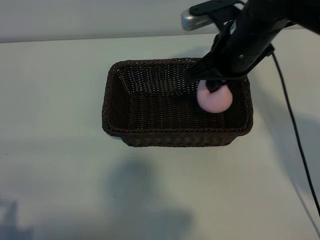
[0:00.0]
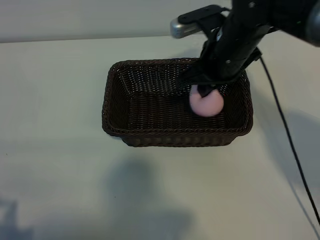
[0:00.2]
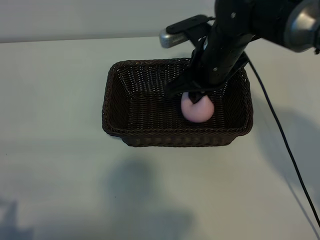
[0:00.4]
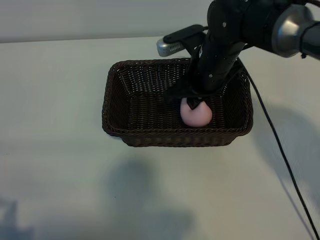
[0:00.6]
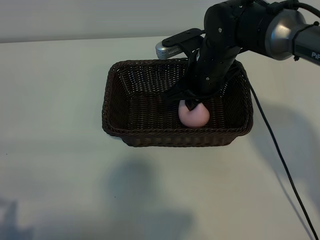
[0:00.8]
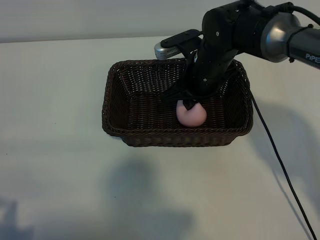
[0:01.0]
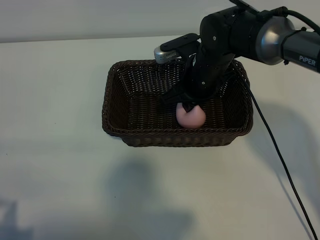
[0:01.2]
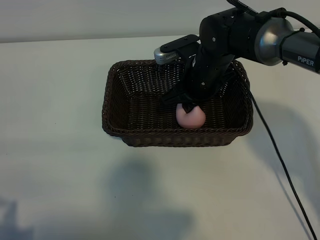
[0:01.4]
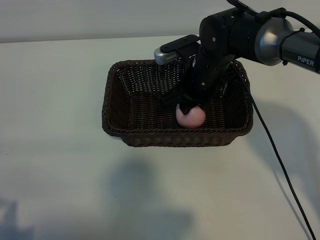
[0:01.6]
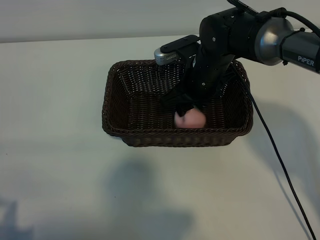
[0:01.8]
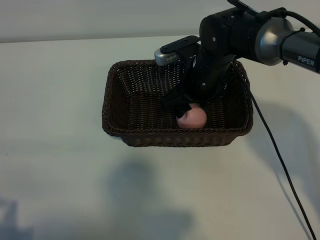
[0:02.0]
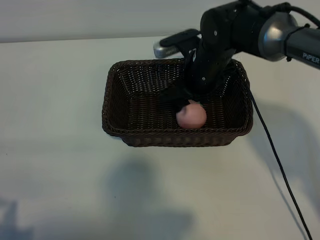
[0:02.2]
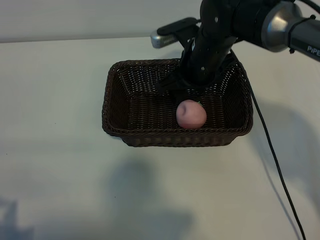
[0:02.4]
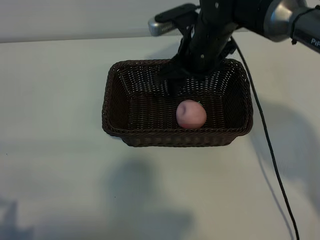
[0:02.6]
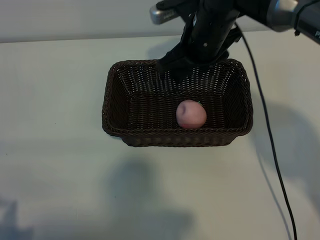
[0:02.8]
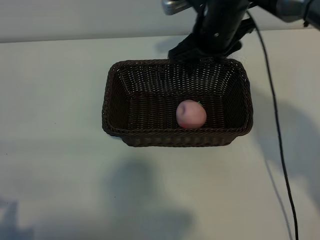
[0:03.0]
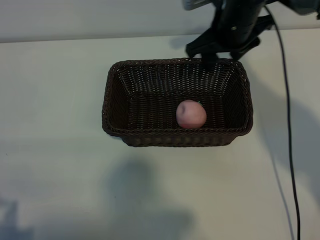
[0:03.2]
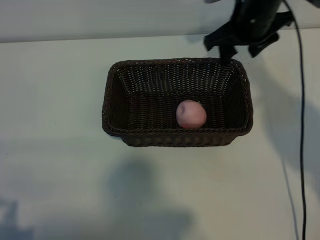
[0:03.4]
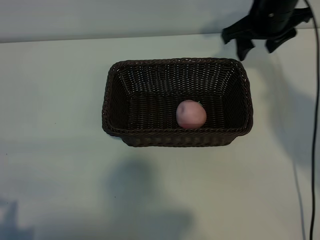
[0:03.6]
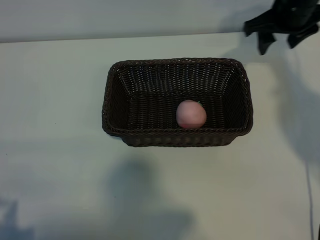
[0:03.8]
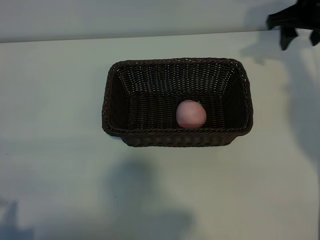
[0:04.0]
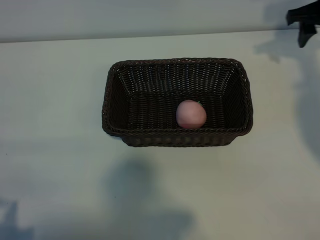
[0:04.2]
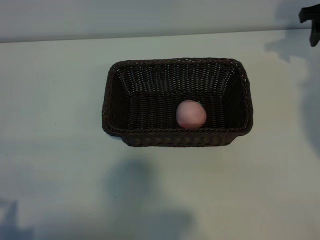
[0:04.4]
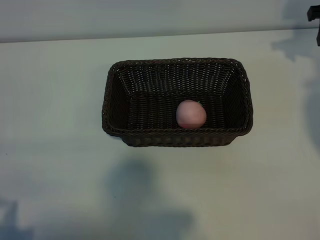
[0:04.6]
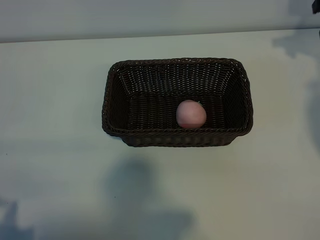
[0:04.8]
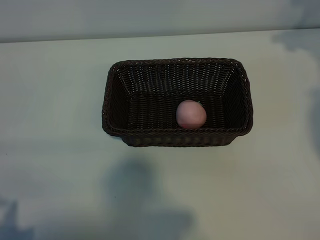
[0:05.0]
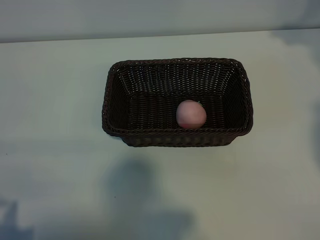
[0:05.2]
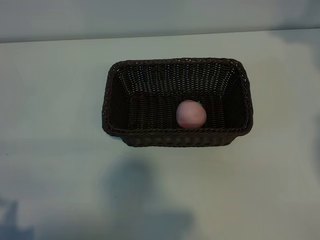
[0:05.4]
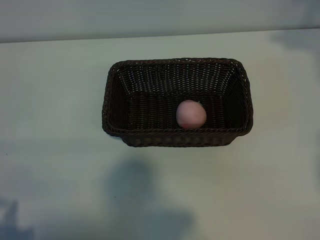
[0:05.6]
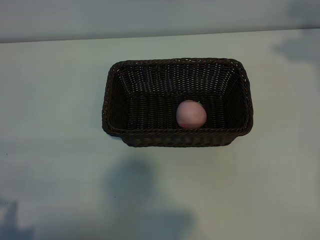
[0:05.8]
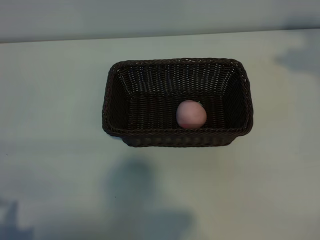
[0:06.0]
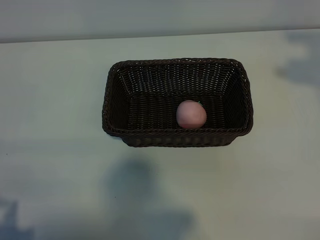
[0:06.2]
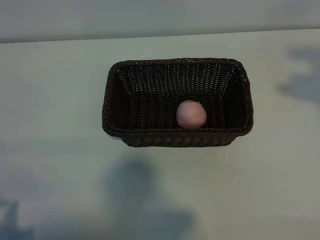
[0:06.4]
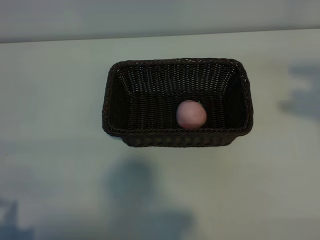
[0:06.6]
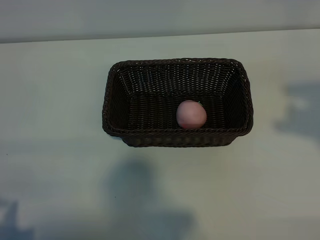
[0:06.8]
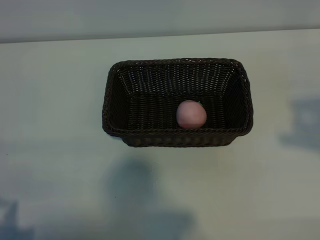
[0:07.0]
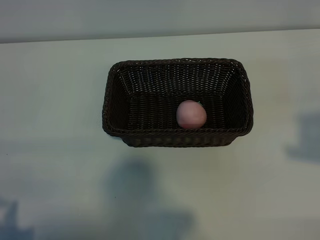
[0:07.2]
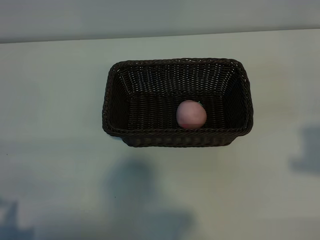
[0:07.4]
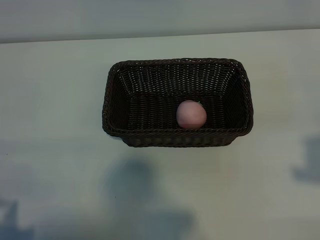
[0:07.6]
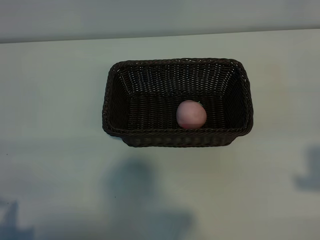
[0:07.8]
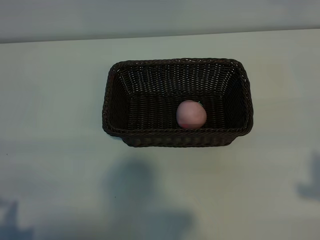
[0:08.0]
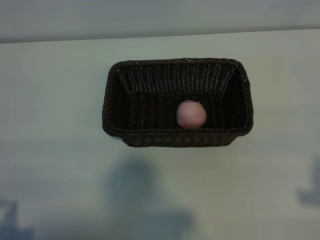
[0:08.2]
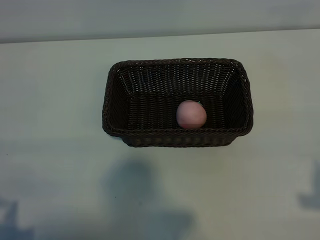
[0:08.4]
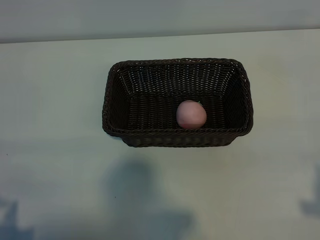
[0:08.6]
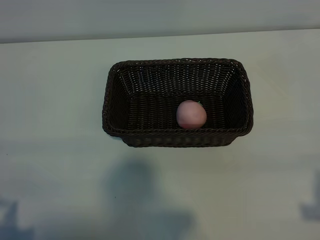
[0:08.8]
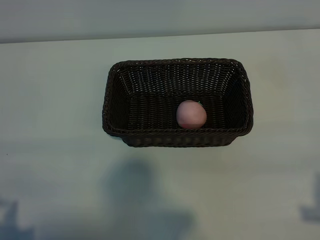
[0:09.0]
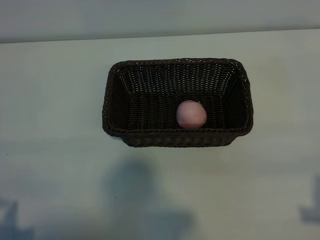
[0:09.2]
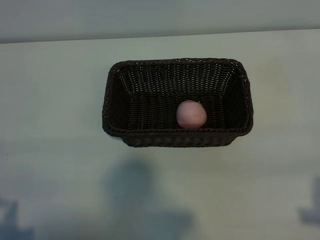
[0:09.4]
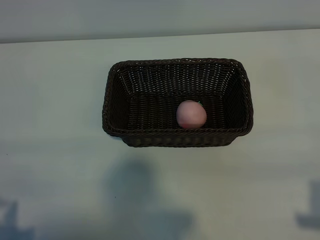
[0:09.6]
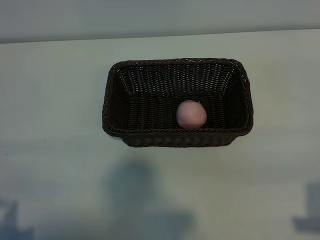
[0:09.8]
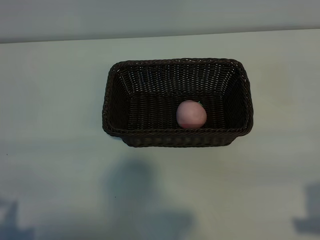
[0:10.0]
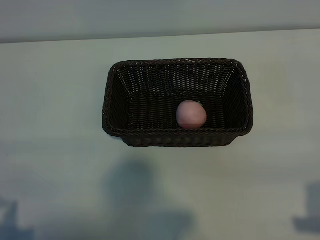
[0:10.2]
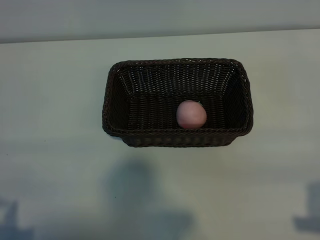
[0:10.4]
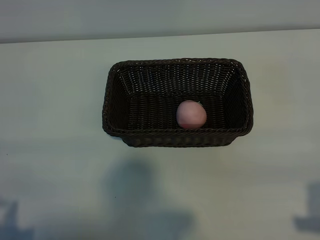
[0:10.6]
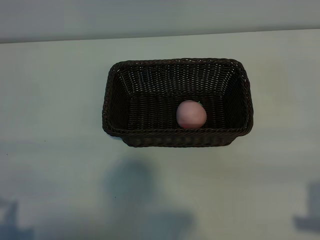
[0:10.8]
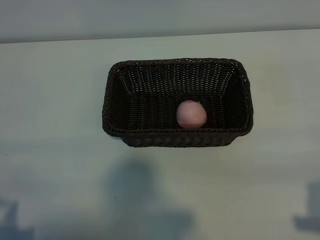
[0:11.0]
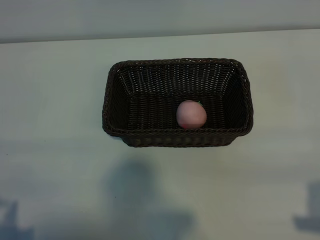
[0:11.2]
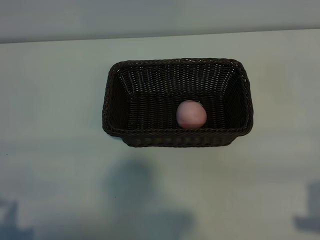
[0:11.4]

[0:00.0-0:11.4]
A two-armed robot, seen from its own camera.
Task of the whole recording: pick up the peach and put it into the basket.
Step, 0:00.0 to 0:02.2: Place the peach in the basket with right gripper.
